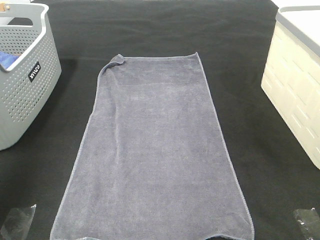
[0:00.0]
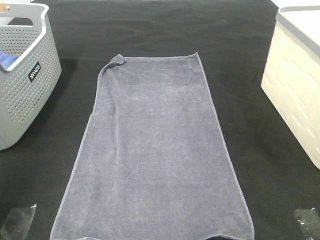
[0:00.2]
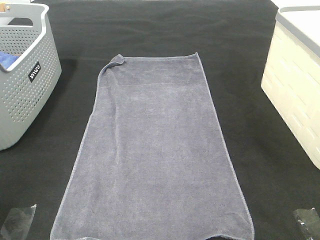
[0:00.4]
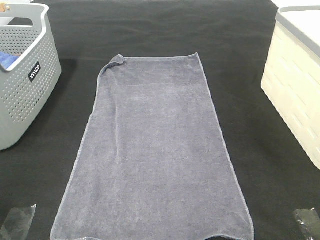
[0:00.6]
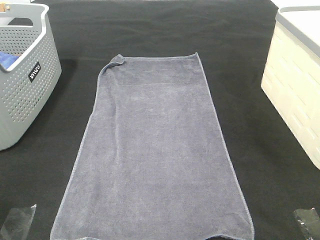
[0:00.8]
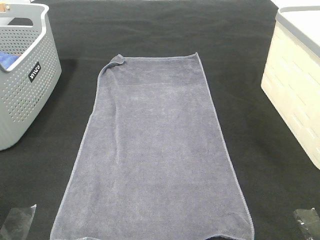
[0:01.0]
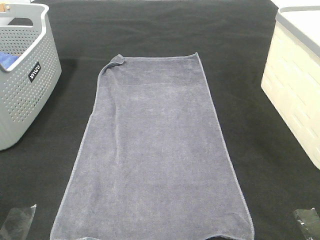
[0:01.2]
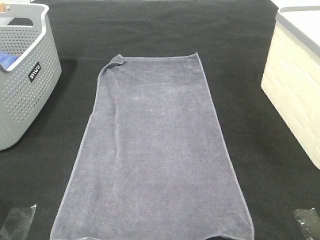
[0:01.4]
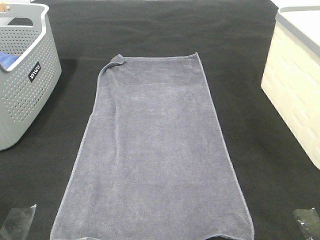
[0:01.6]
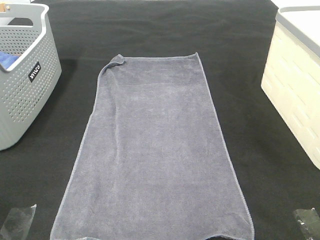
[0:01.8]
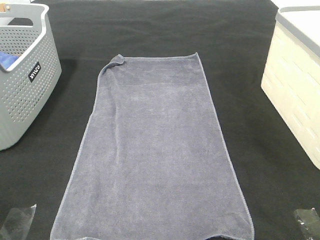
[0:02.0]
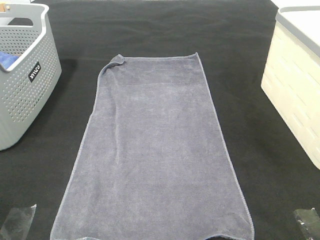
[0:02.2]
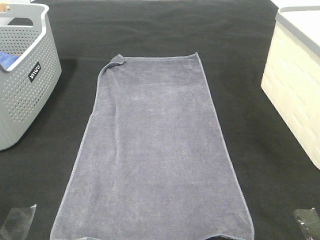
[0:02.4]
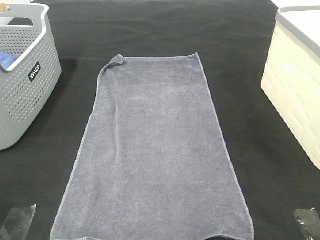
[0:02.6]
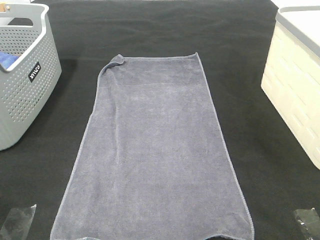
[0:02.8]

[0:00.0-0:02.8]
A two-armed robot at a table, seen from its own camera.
Task of the whole recording: Remove the towel and place it.
0:00.0 to 0:01.4: The left gripper is displaced backward and downward by approximately 20 cm.
0:01.4 to 0:02.8: Both grippers stay about where they are.

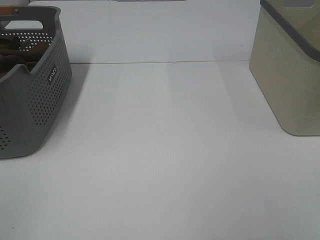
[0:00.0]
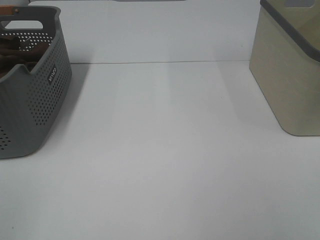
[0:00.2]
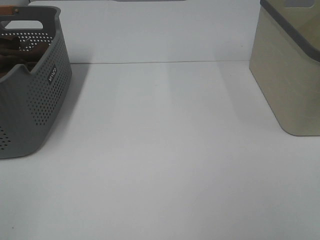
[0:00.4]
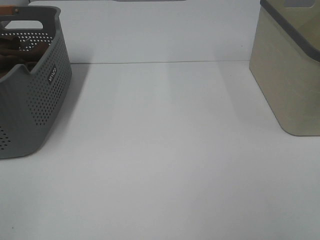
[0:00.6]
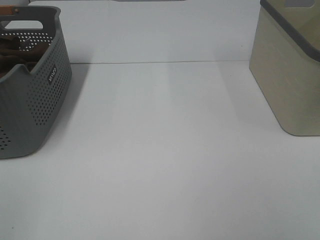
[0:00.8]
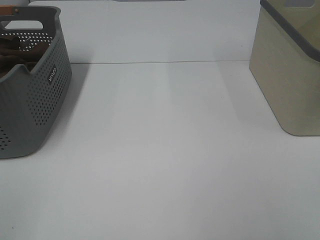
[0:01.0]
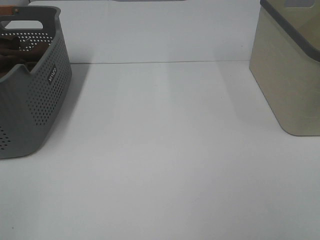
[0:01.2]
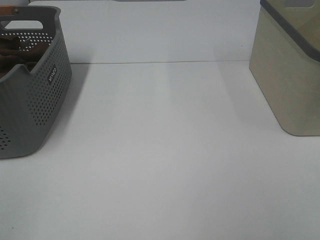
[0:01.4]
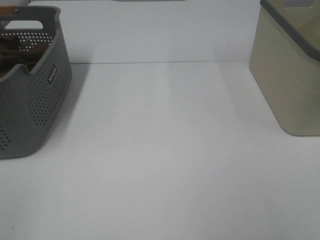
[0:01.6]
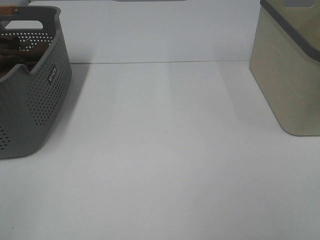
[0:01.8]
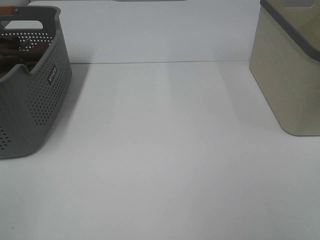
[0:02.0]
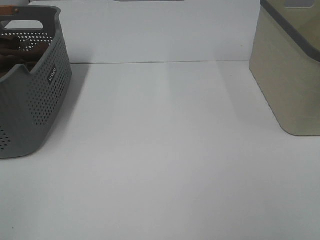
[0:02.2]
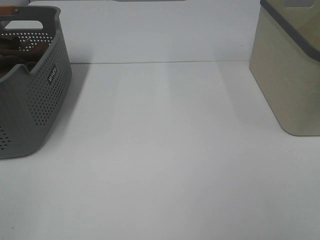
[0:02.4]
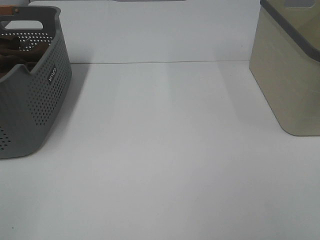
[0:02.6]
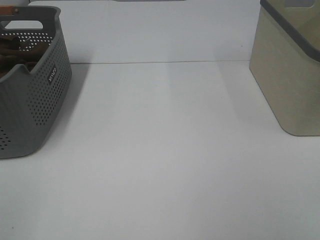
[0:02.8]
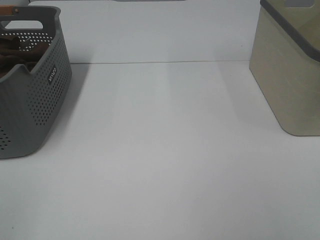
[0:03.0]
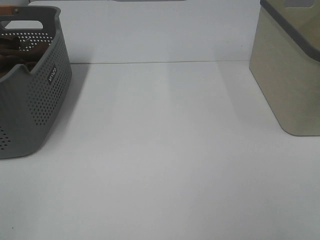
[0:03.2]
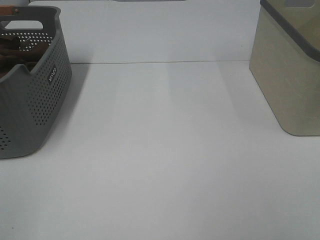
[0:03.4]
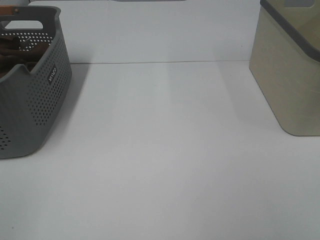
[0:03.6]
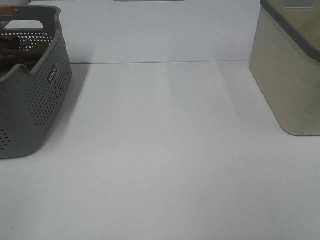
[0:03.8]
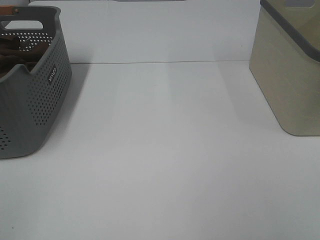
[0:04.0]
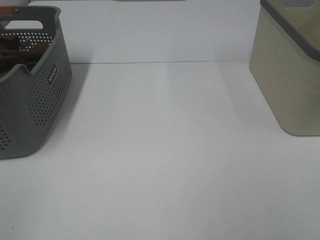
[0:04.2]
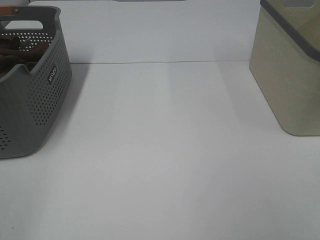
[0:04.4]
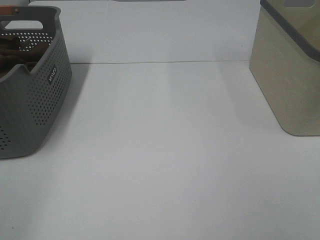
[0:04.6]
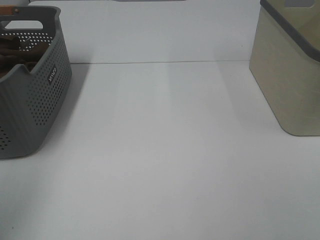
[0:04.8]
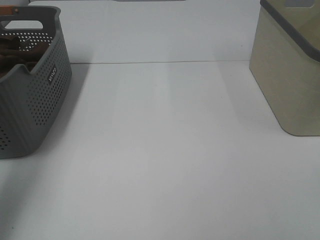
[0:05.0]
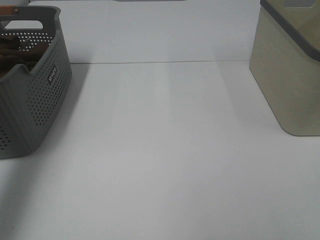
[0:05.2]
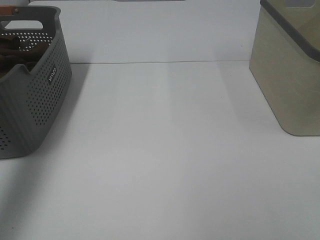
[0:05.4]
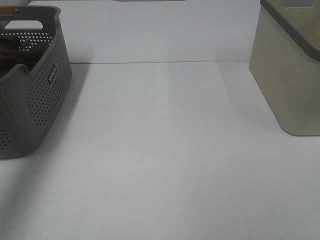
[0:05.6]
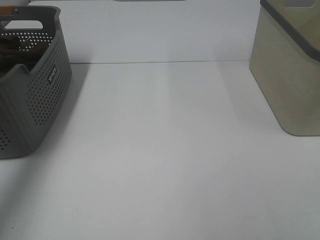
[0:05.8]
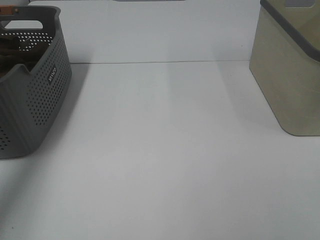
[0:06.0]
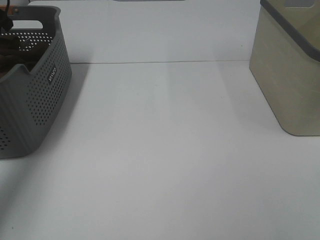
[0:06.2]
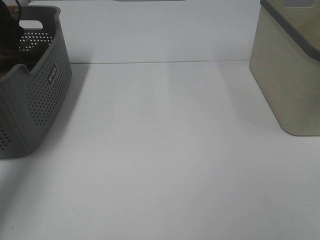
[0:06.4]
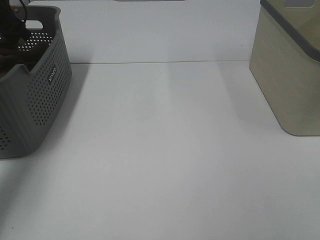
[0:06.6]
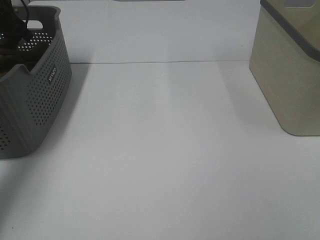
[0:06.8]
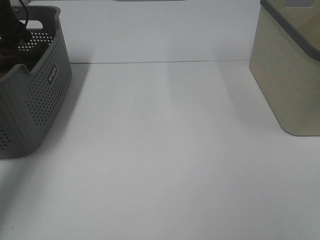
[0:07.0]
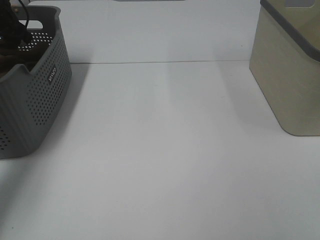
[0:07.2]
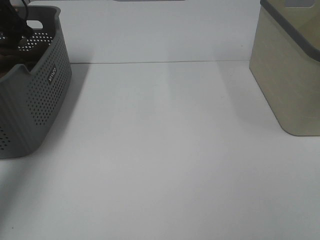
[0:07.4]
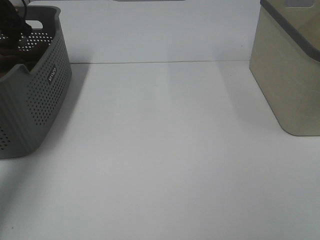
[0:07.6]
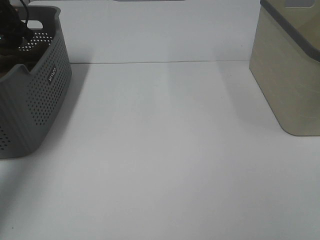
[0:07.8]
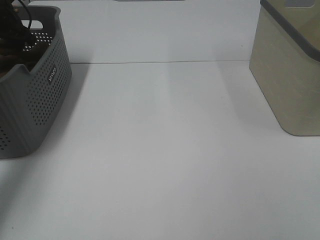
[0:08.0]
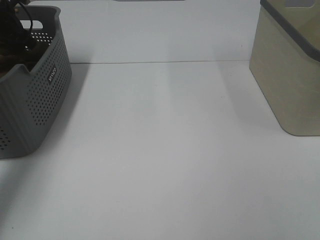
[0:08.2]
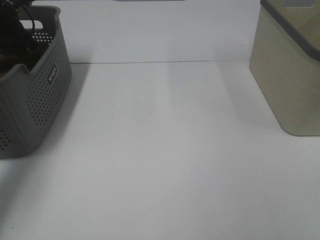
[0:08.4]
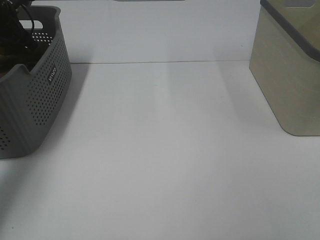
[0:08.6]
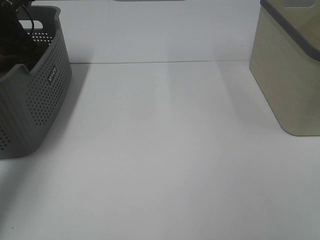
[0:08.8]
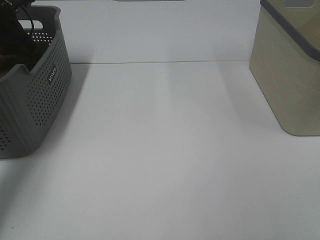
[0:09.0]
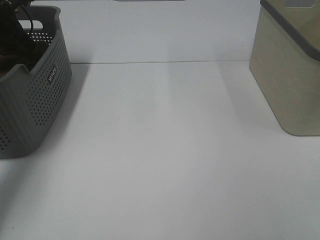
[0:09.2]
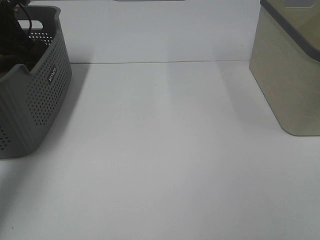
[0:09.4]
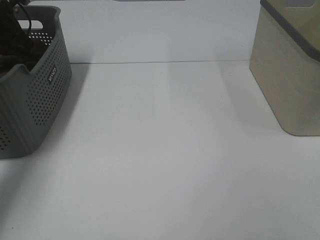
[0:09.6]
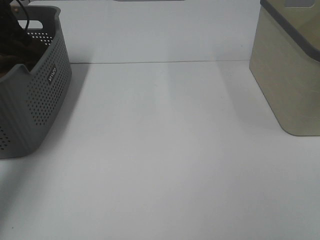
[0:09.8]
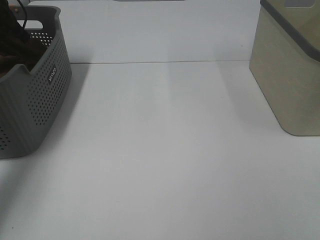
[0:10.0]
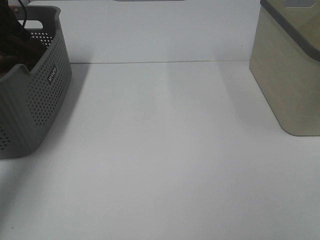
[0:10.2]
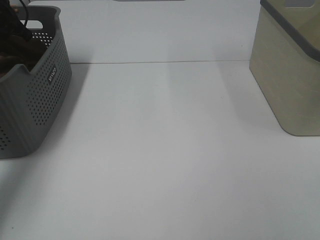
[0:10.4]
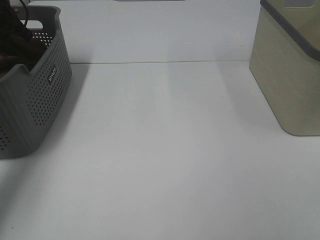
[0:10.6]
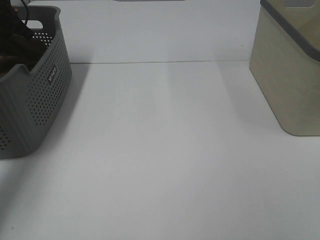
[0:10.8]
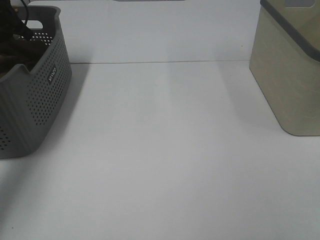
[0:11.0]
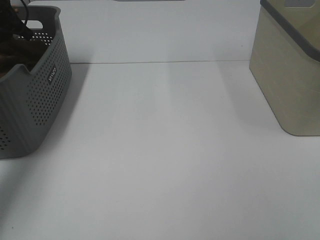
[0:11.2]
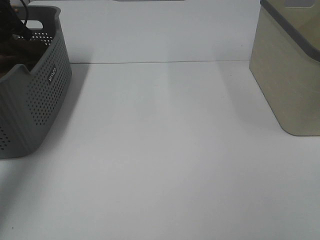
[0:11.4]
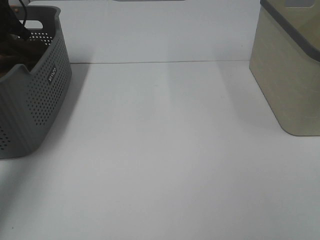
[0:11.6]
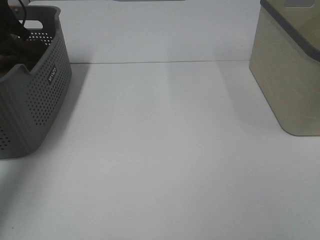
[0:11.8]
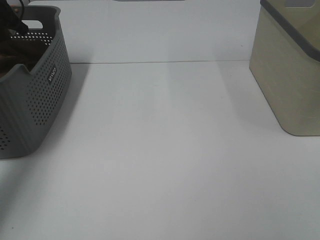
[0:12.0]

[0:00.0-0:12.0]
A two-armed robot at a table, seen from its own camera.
Task of the whole recording: Remove the towel and place it.
0:00.0 to 0:03.0: Both grippers stay about where they are.
0:04.4 to 0:06.0: The left gripper travels forward by approximately 40 cm.
0:06.0 to 0:07.6: The left gripper travels downward and forward by some 10 cm.

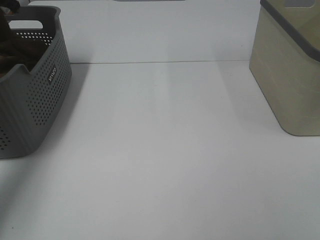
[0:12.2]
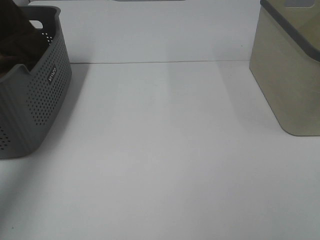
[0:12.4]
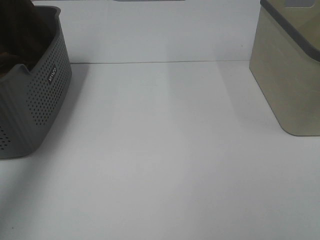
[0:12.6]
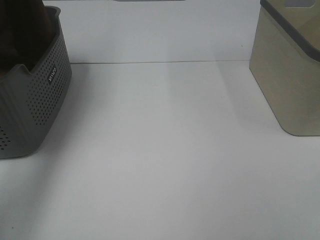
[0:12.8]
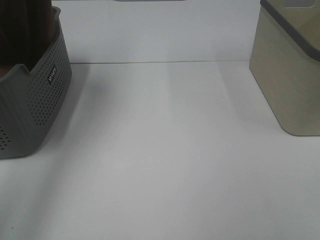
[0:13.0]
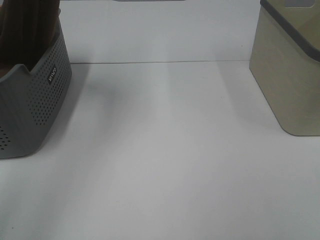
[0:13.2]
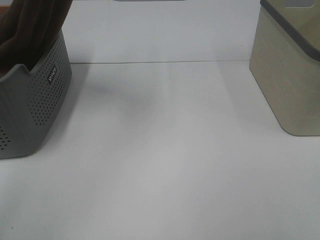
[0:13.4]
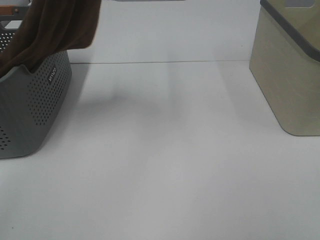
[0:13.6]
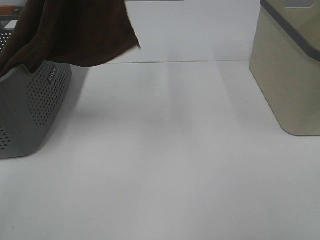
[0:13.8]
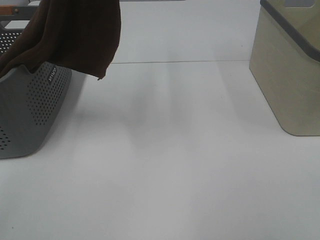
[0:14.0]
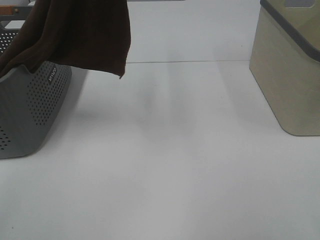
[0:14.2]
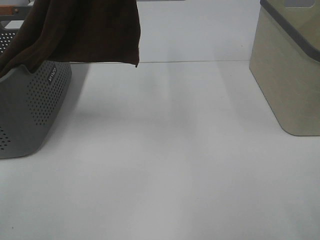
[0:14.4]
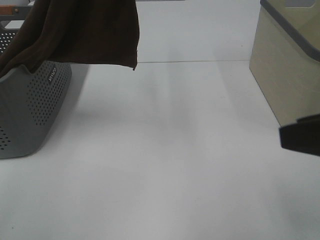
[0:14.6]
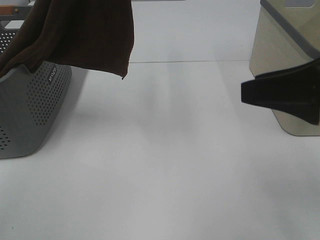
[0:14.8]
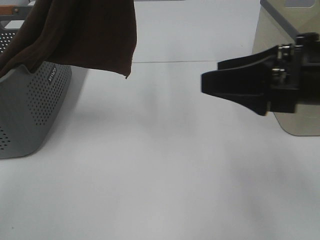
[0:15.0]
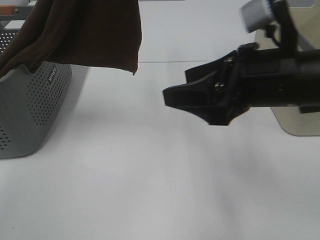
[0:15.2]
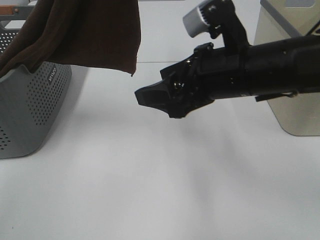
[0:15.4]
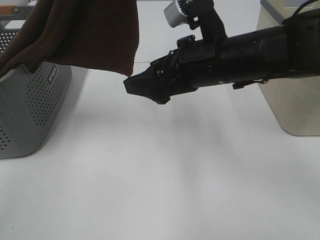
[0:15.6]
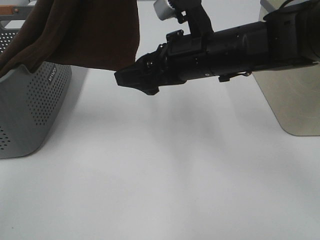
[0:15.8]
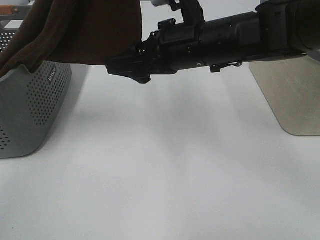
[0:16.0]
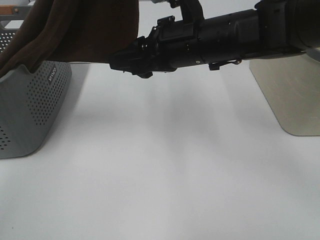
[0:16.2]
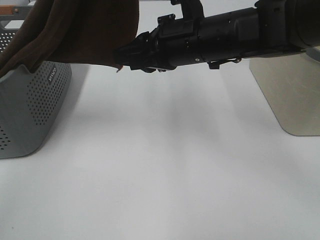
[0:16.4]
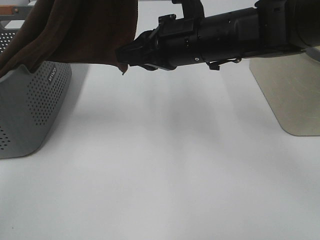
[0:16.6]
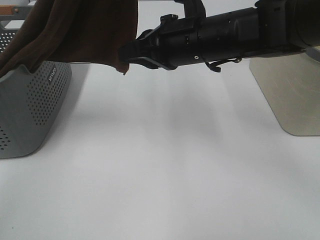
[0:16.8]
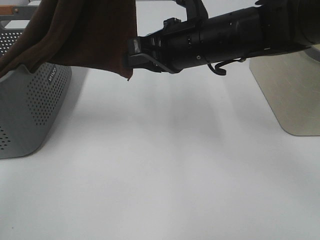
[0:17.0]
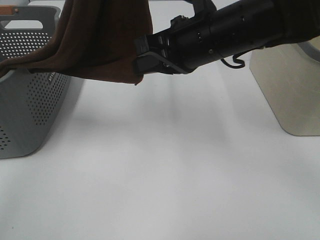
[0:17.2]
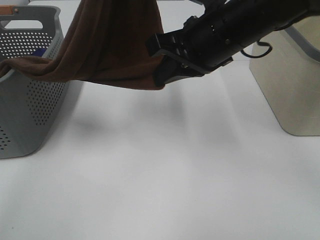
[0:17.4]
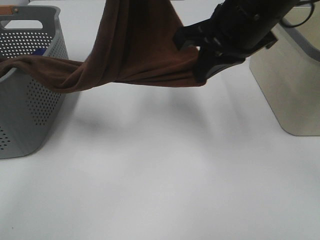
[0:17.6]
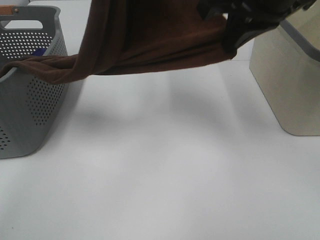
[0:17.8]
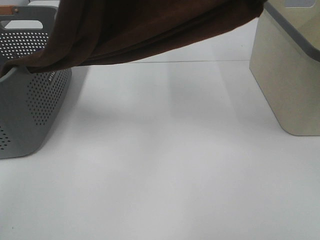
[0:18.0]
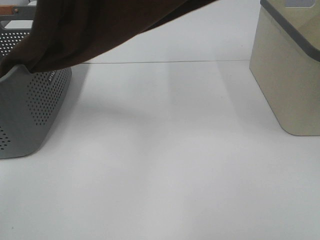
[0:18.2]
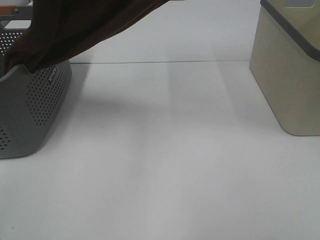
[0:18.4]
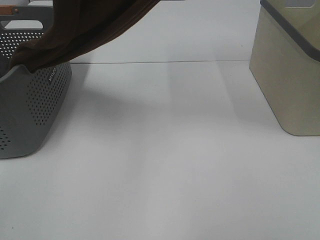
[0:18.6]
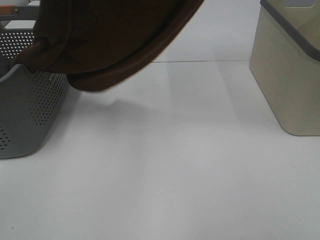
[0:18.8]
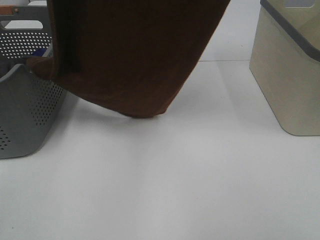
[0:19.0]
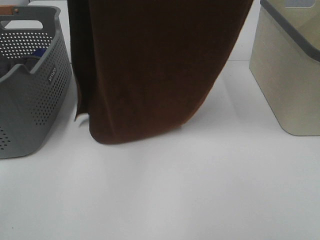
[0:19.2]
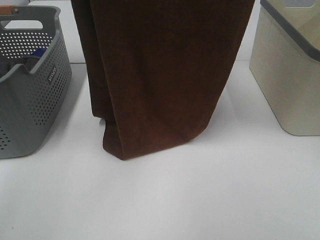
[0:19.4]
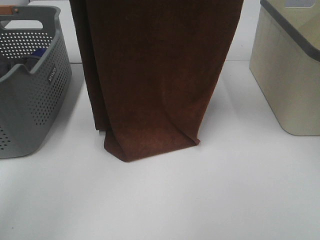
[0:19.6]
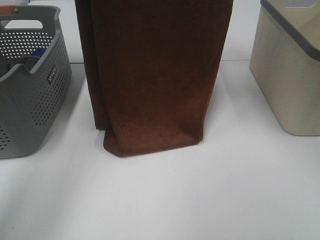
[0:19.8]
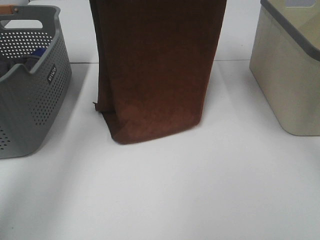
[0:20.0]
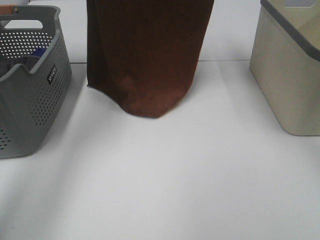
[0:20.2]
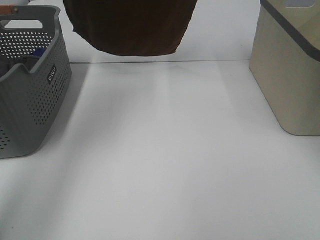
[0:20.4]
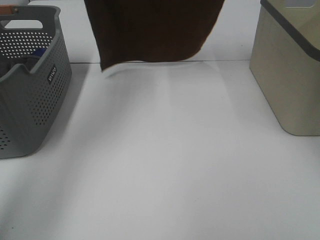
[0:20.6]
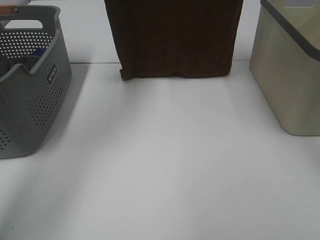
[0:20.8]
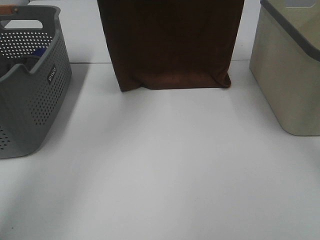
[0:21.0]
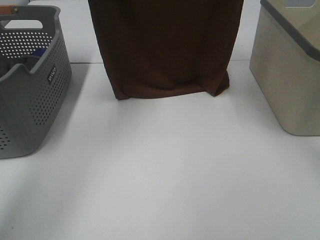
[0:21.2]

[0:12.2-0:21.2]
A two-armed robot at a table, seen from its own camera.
Task of the whole recording: Remove the towel and place it.
Step, 0:12.2 to 0:16.0: Right hand: grab a corner of the brown towel and straighten it.
Step, 0:16.2 to 0:19.2: Left hand: spread the brown towel flat on the table.
Step, 0:16.2 to 0:19.2: Right hand: spread the brown towel flat on the table.
0:12.2 to 0:13.8: The left gripper travels to the right, upward and backward by some 35 cm.
0:13.8 to 0:15.2: The right gripper travels forward and to the left by roughly 25 cm.
0:15.2 to 0:16.6: The right gripper travels forward and to the left by some 10 cm, and closes its fingers.
0:16.6 to 0:18.2: The right gripper shifts about 25 cm upward and to the right; the left gripper goes downward and returns, approximately 10 cm each way.
0:18.2 to 0:19.8: The right gripper heads forward, covering some 10 cm. Meanwhile the left gripper shifts approximately 20 cm forward and downward.
0:19.8 to 0:21.2: The right gripper moves about 10 cm upward and comes back. The left gripper goes upward and returns, some 10 cm each way.
